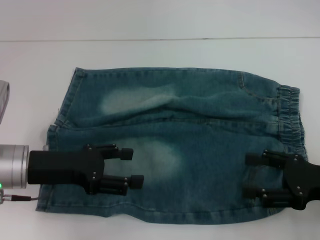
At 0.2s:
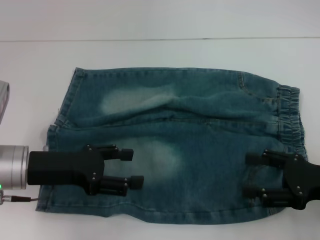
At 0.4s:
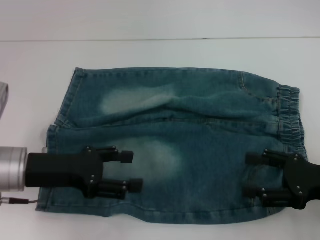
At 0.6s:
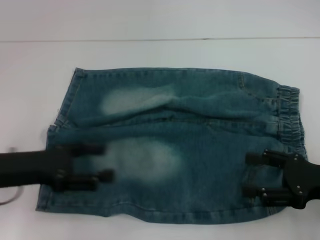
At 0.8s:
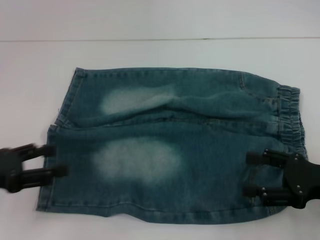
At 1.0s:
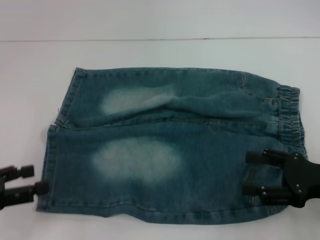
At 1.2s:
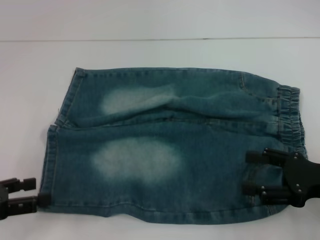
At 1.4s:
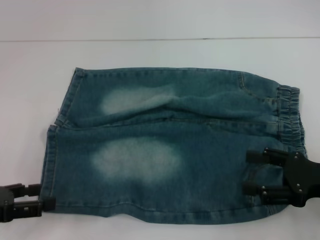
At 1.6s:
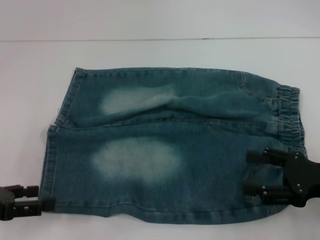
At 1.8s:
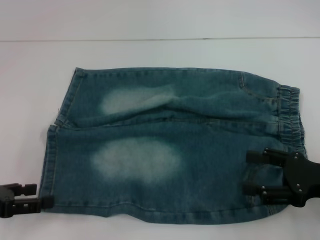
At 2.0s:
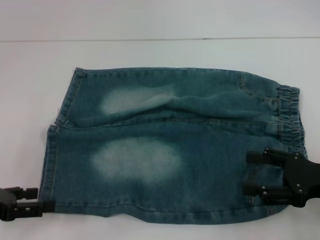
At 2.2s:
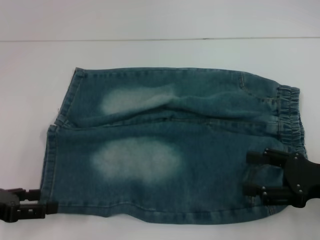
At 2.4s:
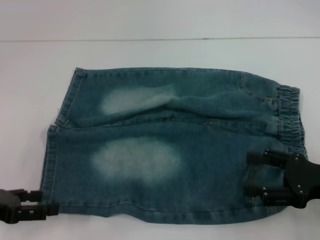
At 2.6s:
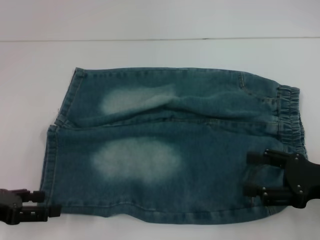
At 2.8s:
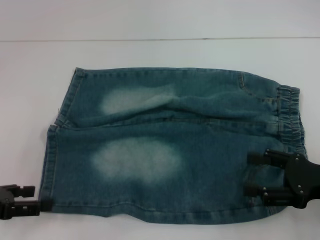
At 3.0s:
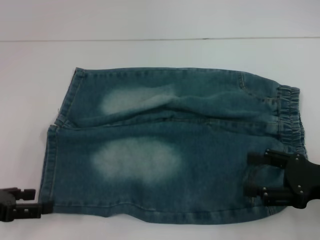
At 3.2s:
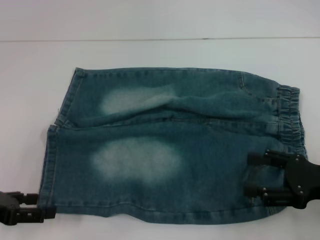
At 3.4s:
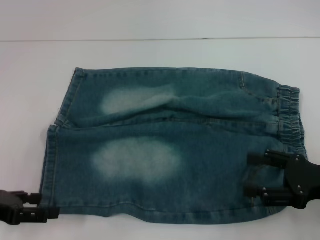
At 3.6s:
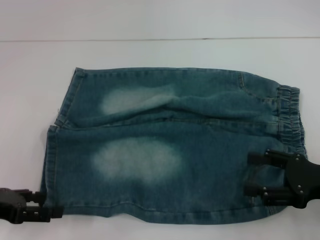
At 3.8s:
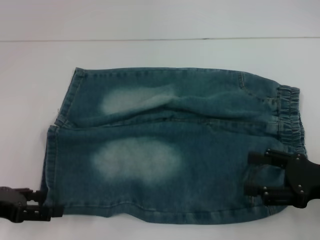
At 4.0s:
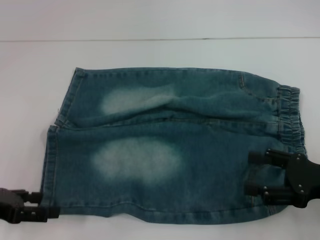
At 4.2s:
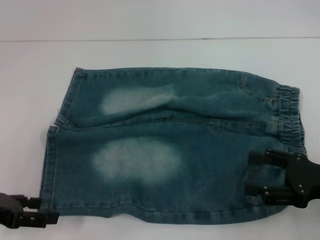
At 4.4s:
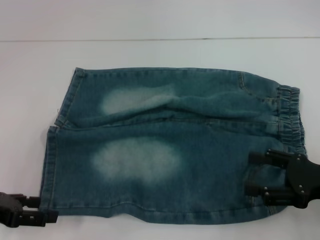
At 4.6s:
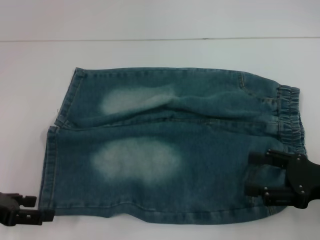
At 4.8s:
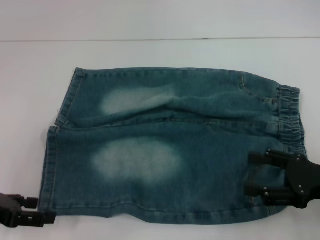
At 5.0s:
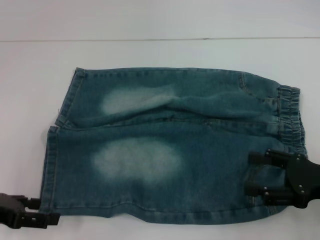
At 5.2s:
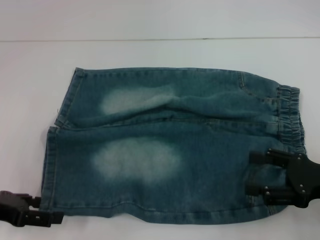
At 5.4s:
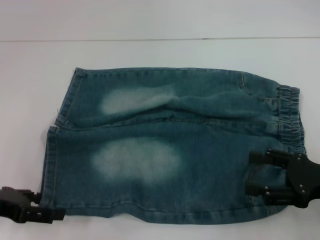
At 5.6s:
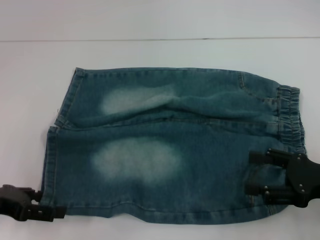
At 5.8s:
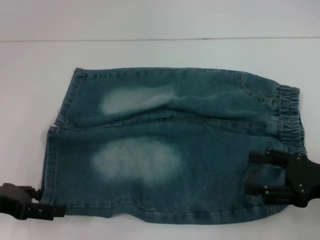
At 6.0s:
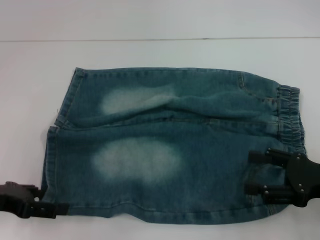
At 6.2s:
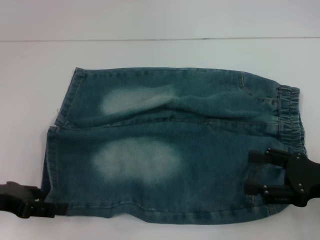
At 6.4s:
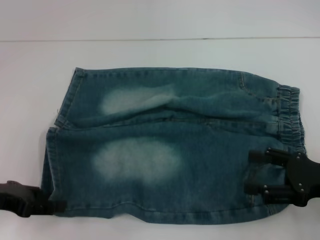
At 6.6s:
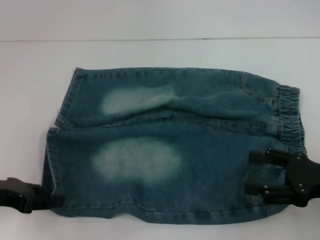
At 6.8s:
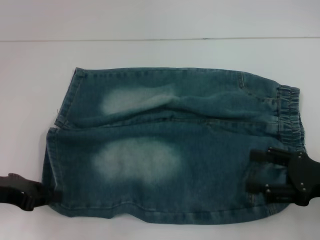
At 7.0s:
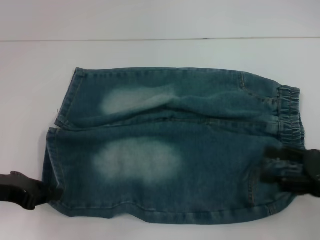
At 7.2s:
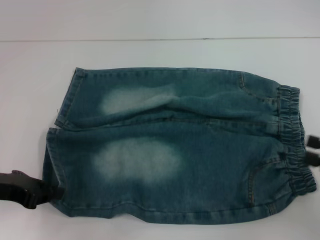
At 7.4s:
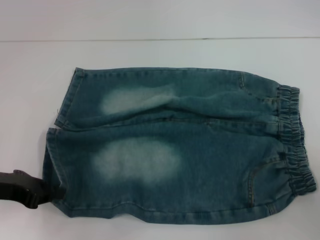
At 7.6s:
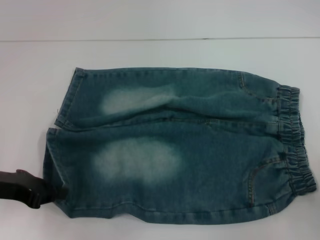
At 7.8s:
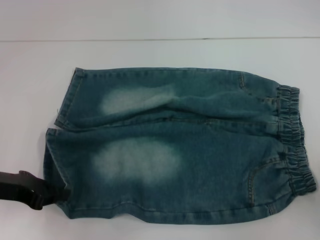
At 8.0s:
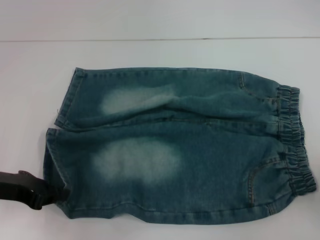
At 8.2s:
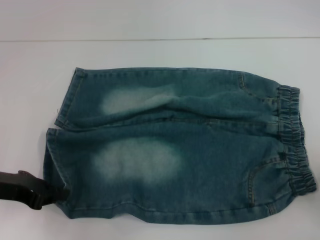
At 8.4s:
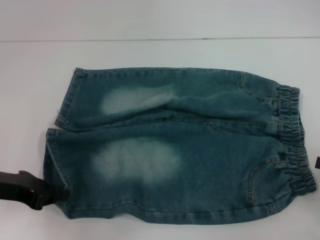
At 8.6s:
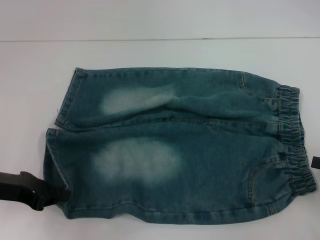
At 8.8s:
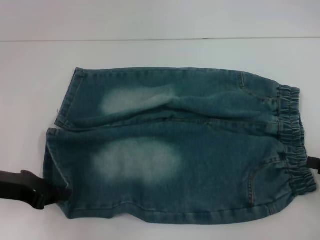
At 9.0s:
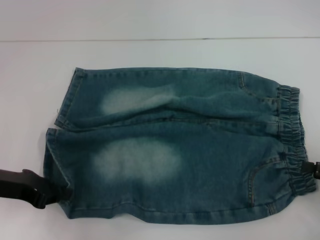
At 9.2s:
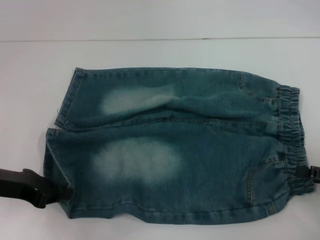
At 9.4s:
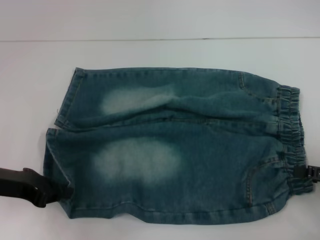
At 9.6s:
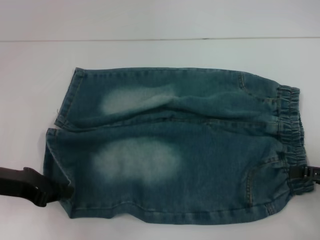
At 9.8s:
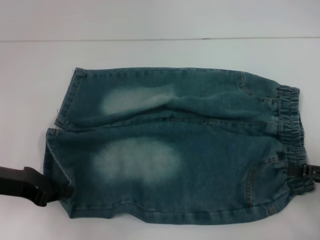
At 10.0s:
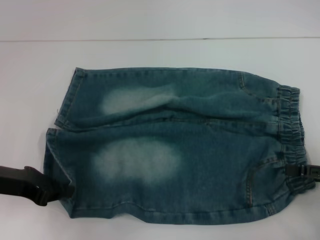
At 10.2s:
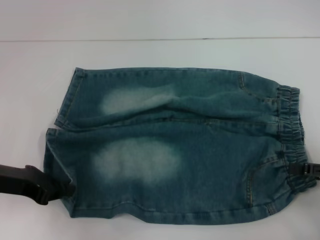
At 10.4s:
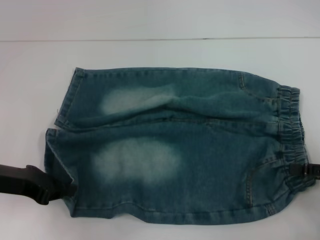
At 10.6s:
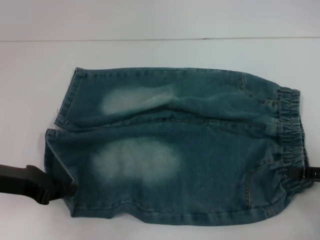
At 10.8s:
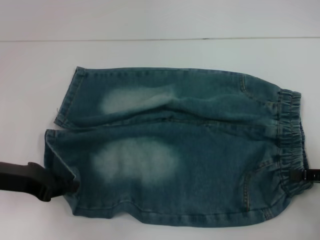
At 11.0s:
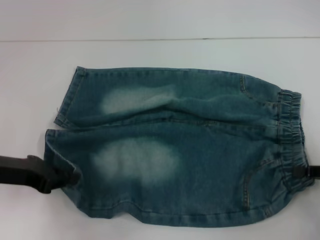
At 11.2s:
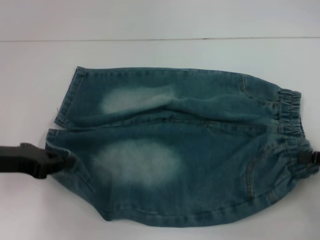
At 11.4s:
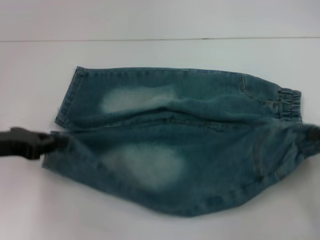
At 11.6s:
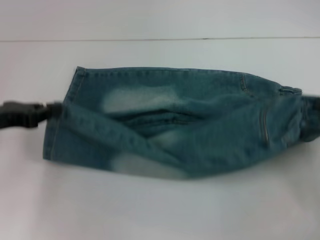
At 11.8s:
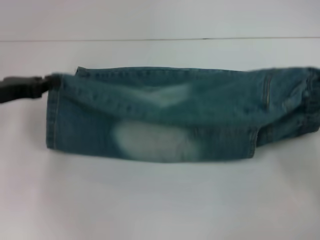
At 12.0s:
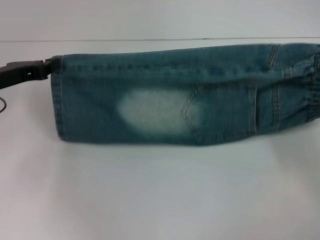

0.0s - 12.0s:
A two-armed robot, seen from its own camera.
Step, 0.0s - 7.2s: Grab the lower left pant leg with your left hand.
Step, 7.4s - 10.8s: Hold the lower right waistband with your right hand.
0.0s - 1.6s: The left gripper is displaced to the left and backward by about 10 cm.
1.6s - 6.0s: The grippers make only small movements.
6.0s - 7.6s: The left gripper closes up; the right gripper shifts some 10 cm to the right and backward.
9.0s - 10.4s: The grippers make only small movements.
10.4s - 12.0s: The two grippers go about 5 cm forward. The right gripper closes its fingers.

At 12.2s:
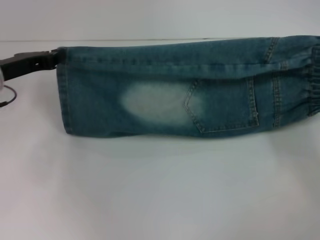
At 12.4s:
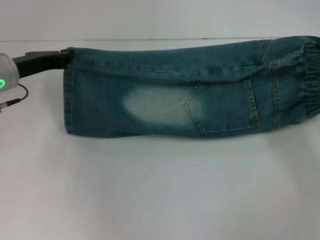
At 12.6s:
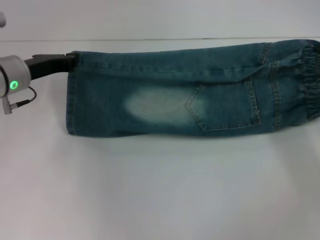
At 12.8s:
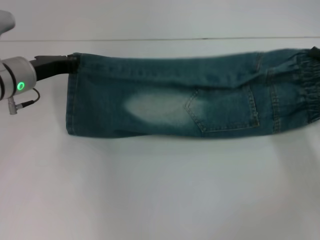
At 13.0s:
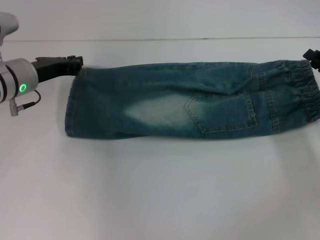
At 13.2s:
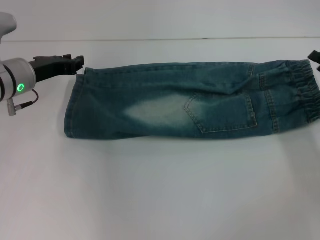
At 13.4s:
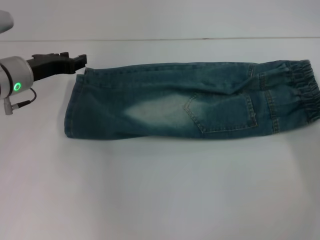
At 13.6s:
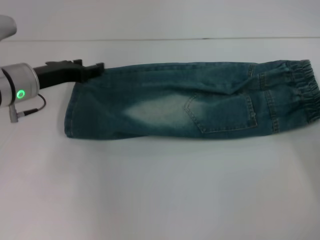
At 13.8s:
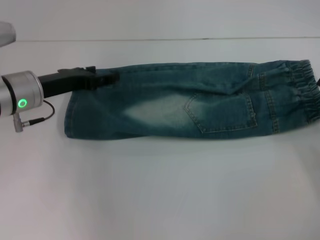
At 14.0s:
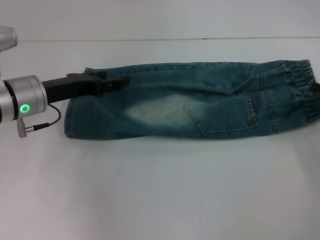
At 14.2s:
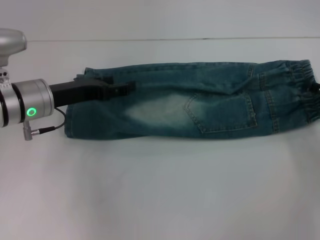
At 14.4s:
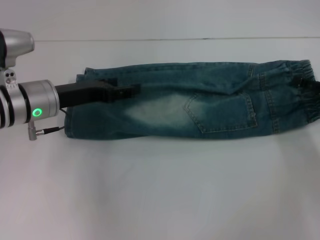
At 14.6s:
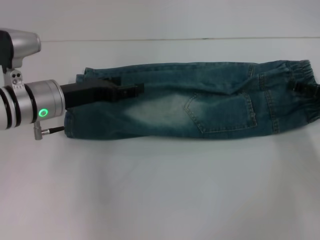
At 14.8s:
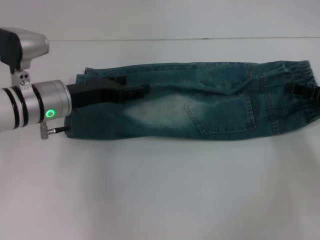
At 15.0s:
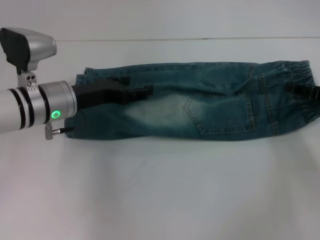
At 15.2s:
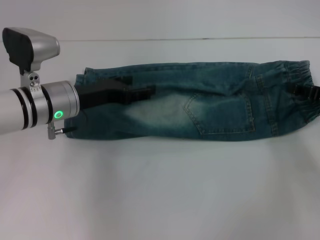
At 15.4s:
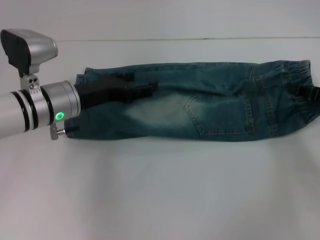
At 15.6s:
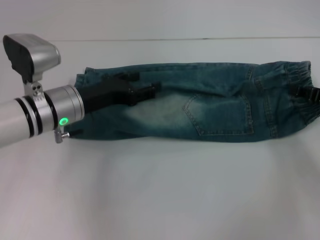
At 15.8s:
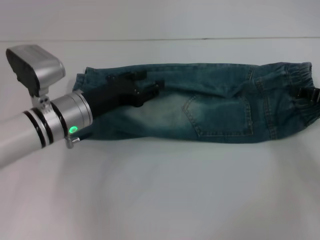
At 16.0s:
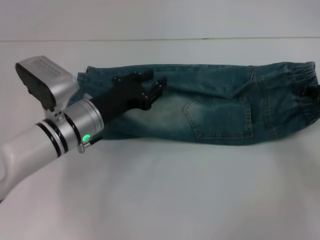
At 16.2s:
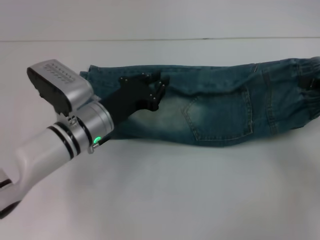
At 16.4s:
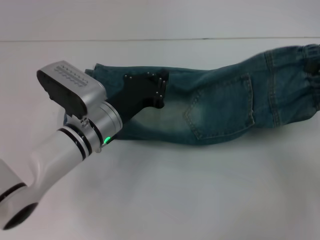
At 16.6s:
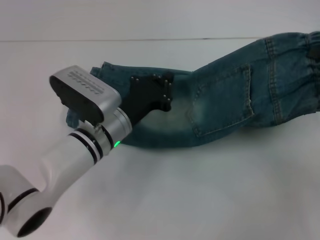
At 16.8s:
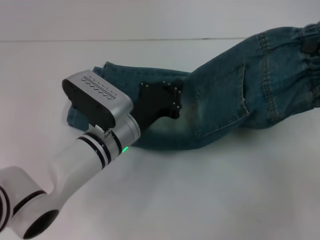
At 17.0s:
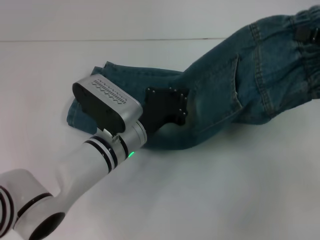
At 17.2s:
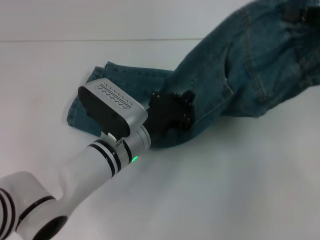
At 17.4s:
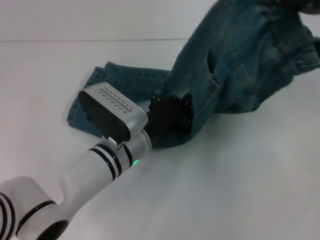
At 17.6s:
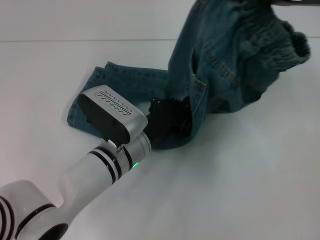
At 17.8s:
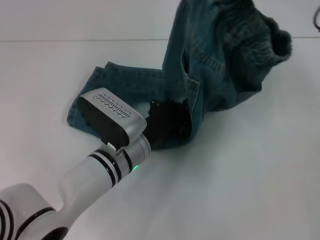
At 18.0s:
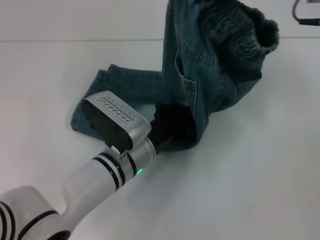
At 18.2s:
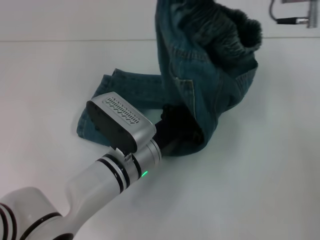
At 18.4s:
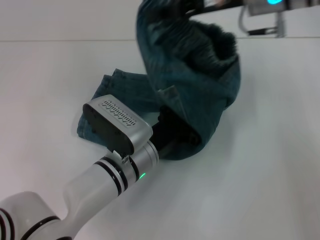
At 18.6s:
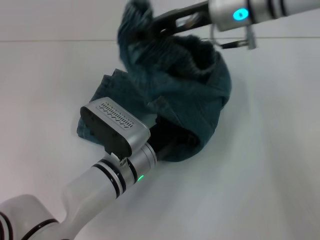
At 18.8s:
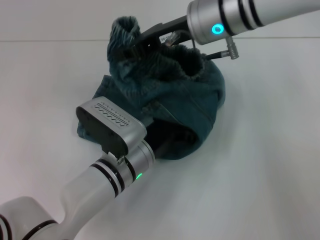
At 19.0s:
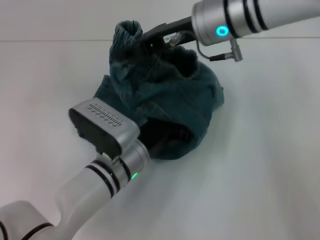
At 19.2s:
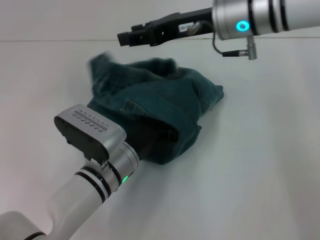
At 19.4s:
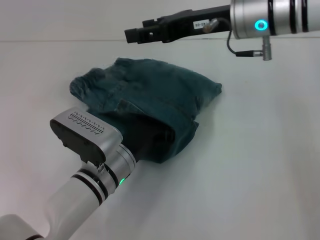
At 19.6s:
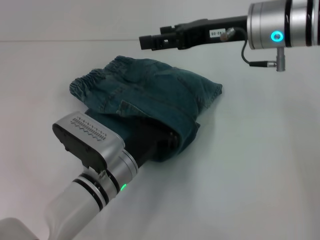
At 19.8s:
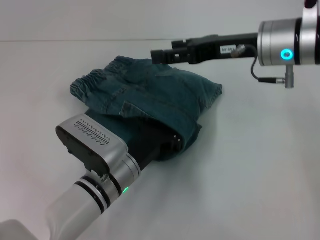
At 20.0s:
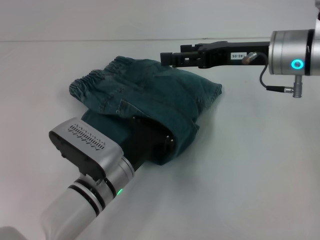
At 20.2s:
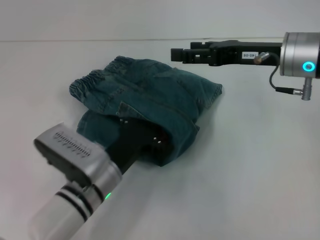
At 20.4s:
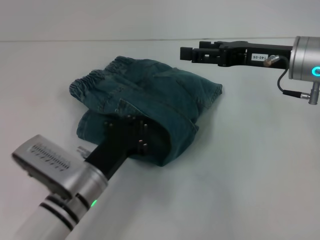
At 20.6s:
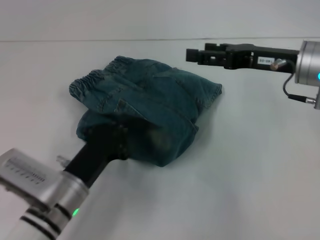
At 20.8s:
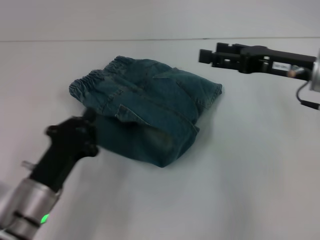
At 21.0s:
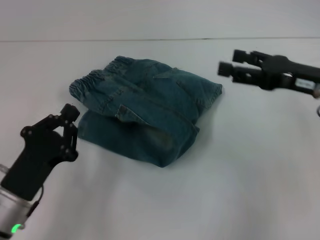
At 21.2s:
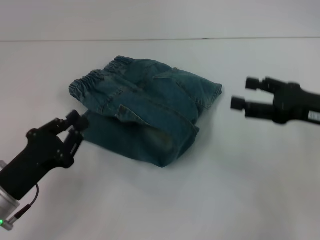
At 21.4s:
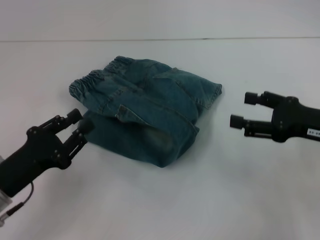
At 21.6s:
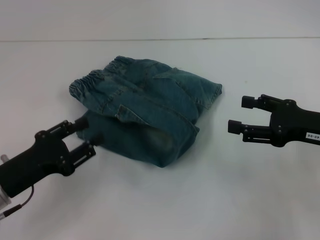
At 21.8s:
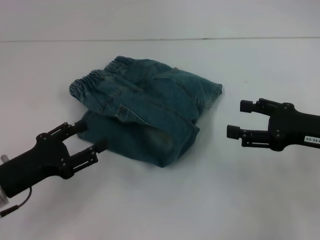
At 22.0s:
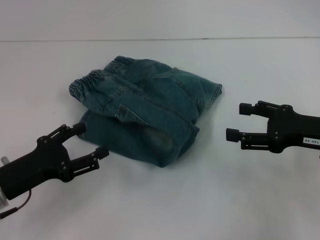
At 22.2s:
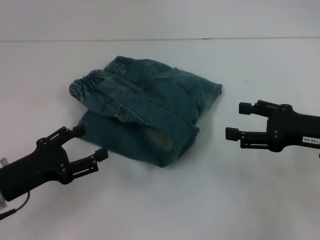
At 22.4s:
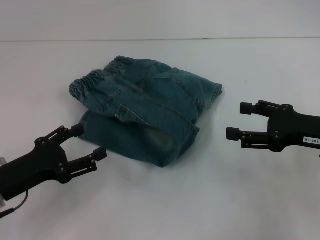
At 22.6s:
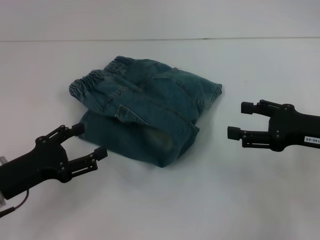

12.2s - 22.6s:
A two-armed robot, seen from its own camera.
Step, 13.2s - 15.6s: Grab the waistband with your right hand.
Step, 16.0s - 19.4s: Fold to the left with your right hand.
Step, 19.6s - 20.0s: Press the middle of the pants with your left hand.
12.2s - 13.6s: The left gripper opens up. The right gripper opens.
13.6s - 15.2s: The right gripper moves approximately 5 cm. Meanwhile the left gripper is displaced to the right by approximately 5 cm, and opens its fingers.
15.2s - 16.6s: The right gripper moves upward, some 10 cm, and closes. Meanwhile the left gripper shifts about 10 cm to the right, and closes.
16.6s - 18.2s: The left gripper changes place by about 5 cm, while the right gripper is displaced to the left, forward and upward by roughly 25 cm.
18.2s - 19.6s: The right gripper goes approximately 5 cm downward, reaches roughly 10 cm to the left, then returns, and opens its fingers.
19.6s - 21.2s: The right gripper is displaced to the right, backward and downward by some 20 cm; the left gripper goes roughly 15 cm to the left.
21.2s - 22.6s: The left gripper opens its fingers.
